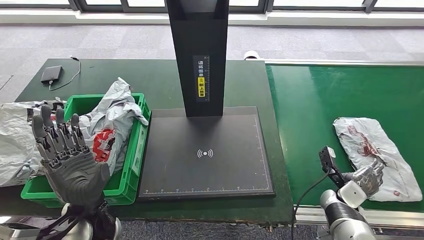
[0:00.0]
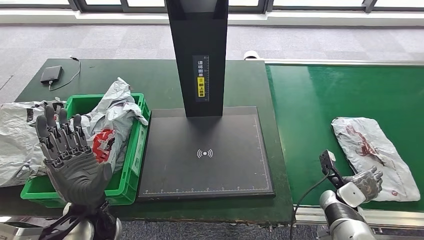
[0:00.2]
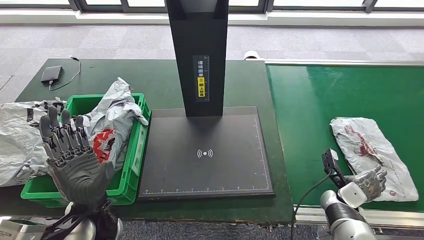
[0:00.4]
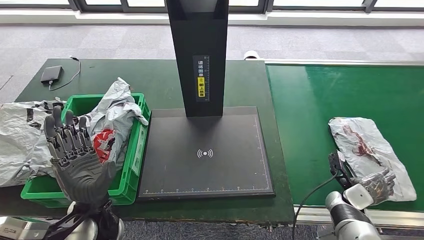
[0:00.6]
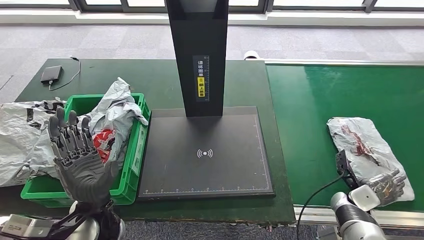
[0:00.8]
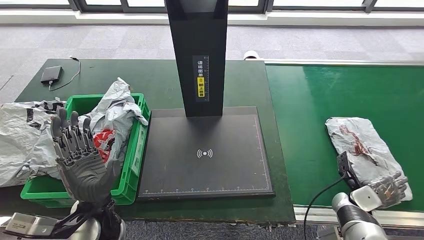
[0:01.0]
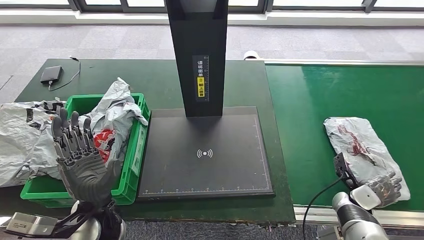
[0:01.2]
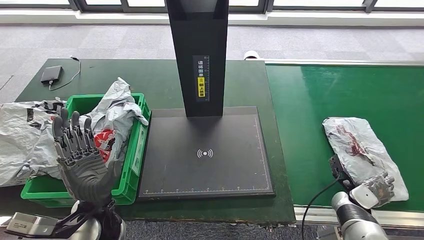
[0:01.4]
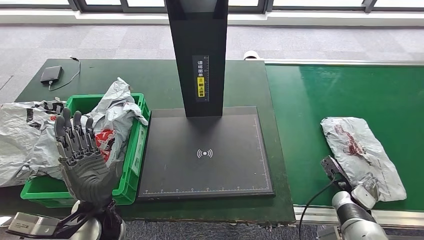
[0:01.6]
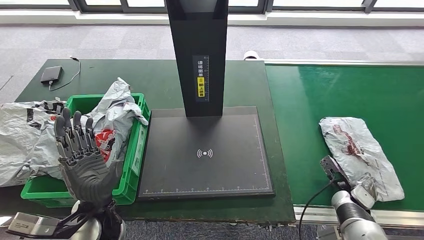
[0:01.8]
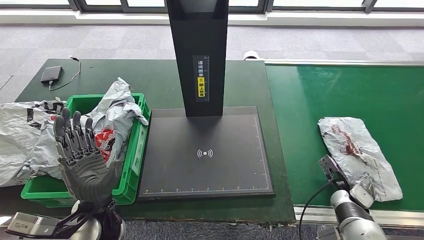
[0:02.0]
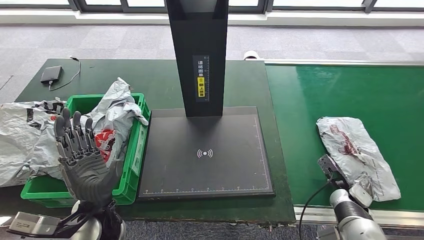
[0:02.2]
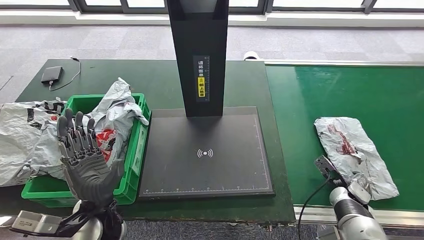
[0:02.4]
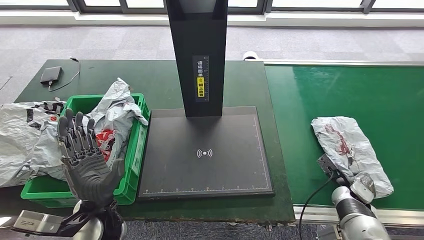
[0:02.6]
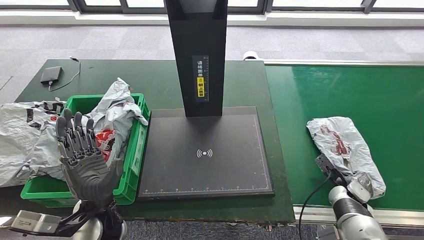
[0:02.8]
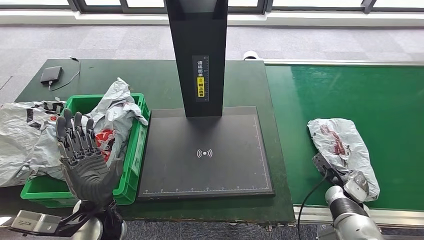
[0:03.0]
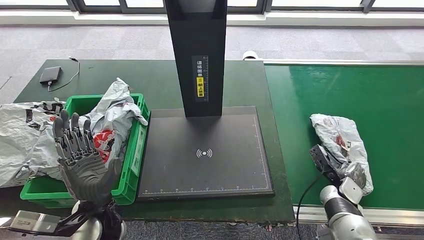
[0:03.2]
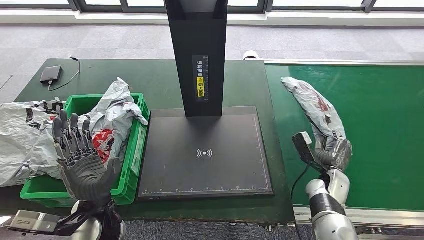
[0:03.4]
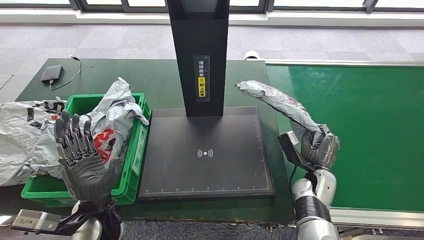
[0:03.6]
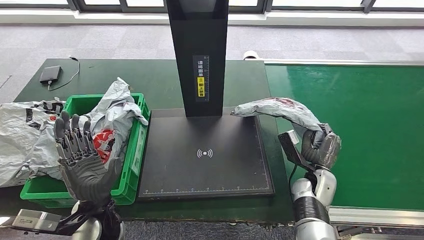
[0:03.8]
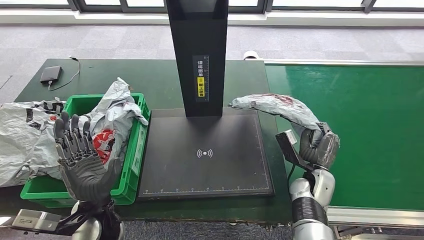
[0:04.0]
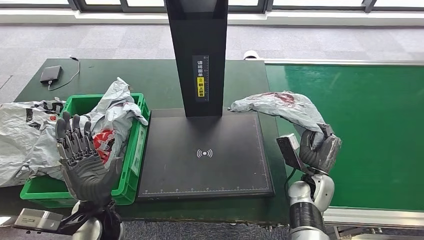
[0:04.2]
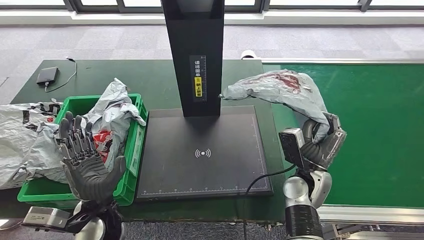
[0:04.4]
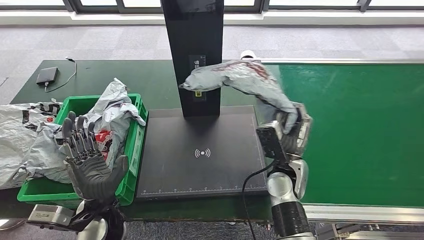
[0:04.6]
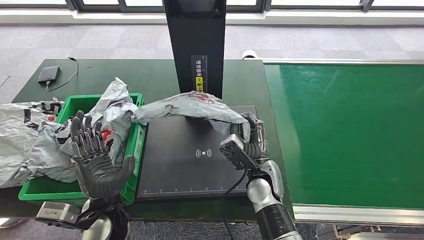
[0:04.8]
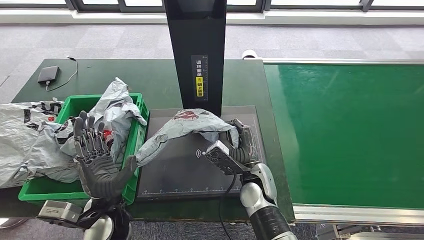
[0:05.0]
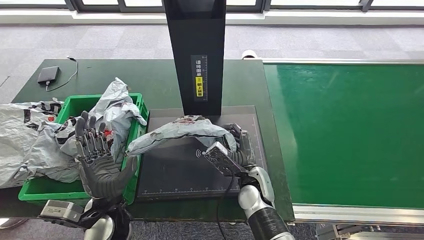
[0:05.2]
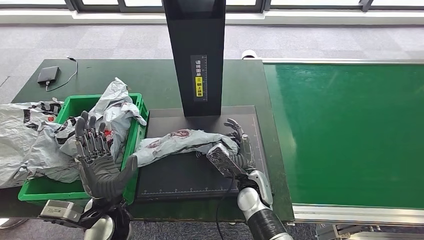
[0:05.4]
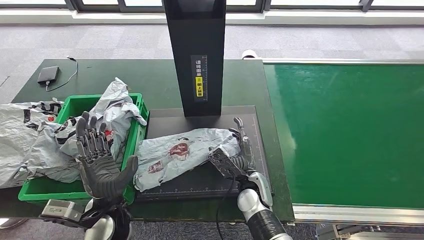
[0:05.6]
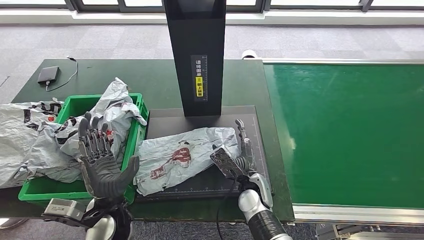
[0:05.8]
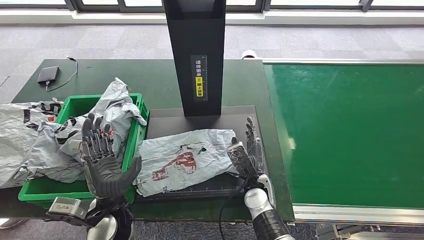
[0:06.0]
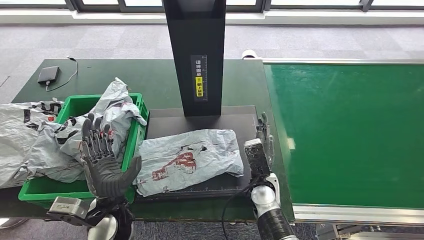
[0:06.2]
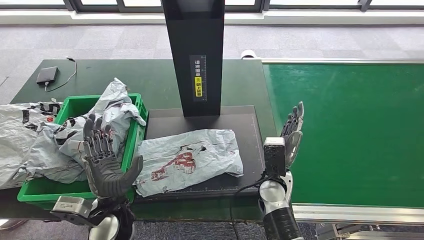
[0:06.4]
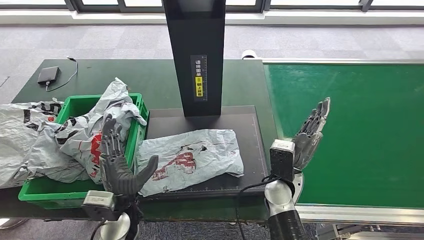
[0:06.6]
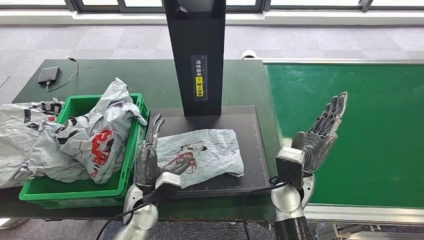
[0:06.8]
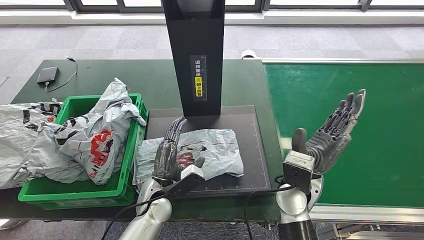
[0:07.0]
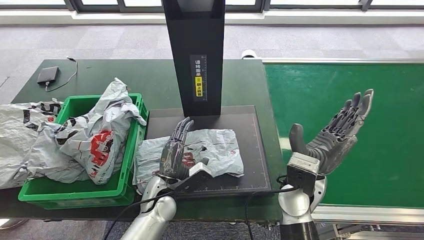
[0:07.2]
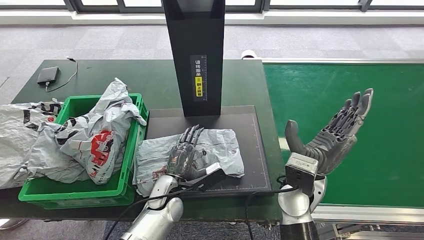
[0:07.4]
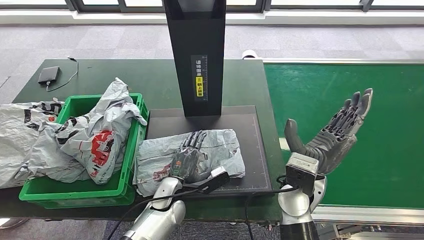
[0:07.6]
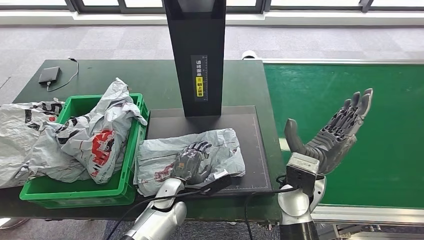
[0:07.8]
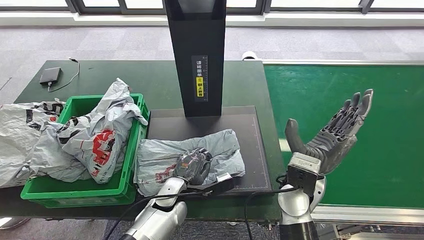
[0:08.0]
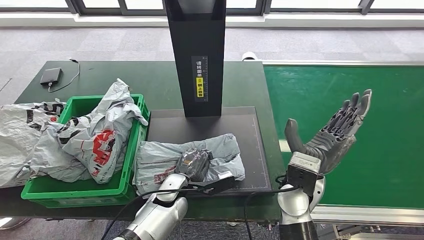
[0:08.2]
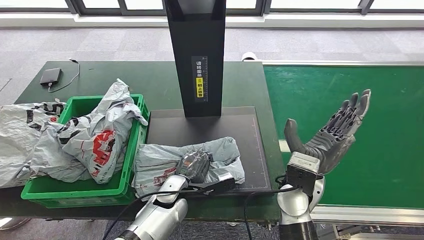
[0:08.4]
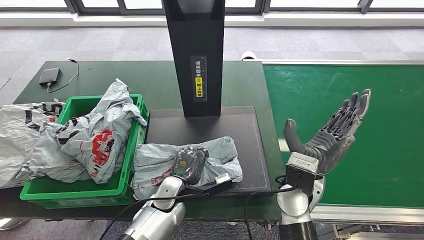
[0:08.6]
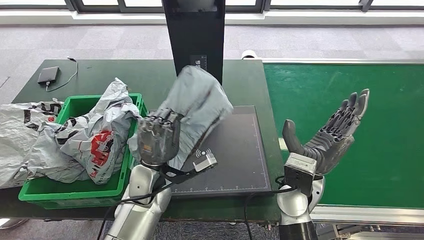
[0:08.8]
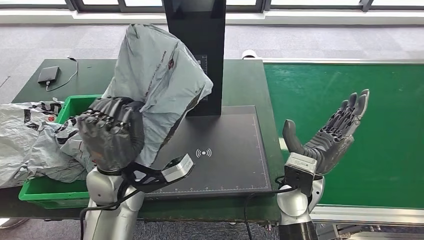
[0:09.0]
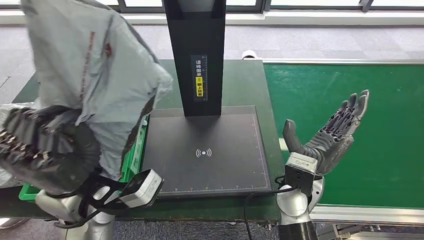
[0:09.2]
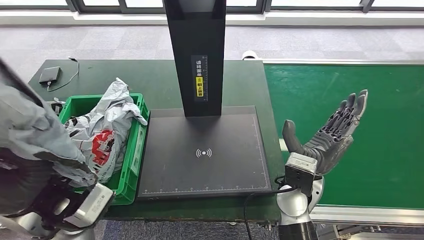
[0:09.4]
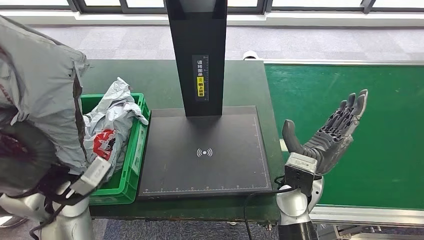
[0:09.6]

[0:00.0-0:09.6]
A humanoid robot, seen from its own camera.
Step, 0:00.0 to 0:04.0: Pick up the parcel from the conveyor belt.
Step, 0:04.2 to 0:06.0: Place the parcel onto the inbound machine.
Step, 0:06.2 to 0:09.0: Pick up the parcel from the inbound machine.
0:00.0 to 0:01.6: The hands stay close to where they were, moving slightly.
0:01.6 to 0:03.2: There are only small adjustments of the hands.

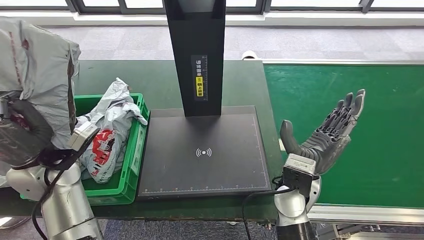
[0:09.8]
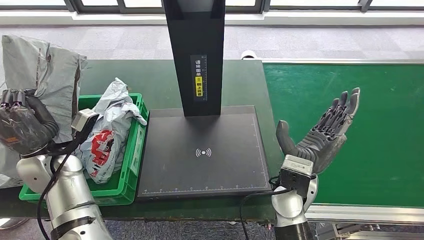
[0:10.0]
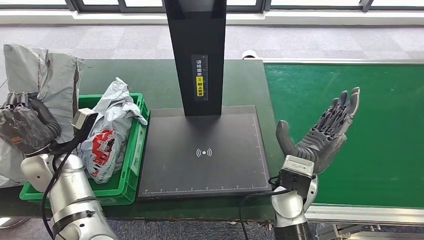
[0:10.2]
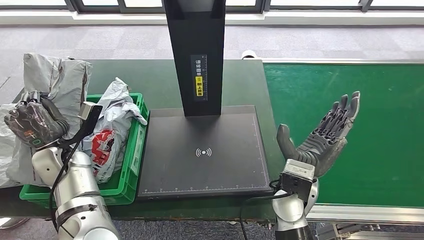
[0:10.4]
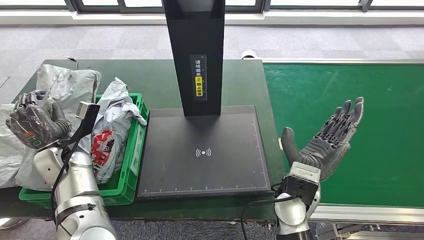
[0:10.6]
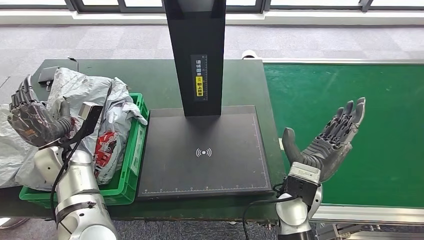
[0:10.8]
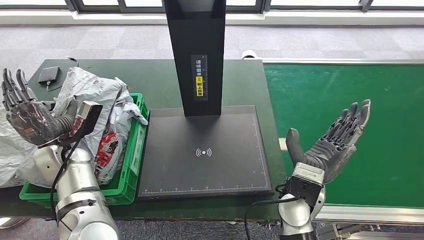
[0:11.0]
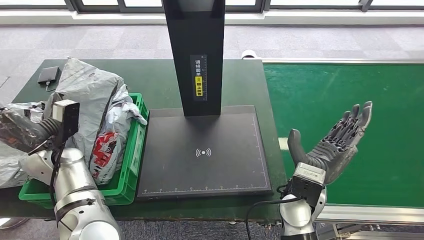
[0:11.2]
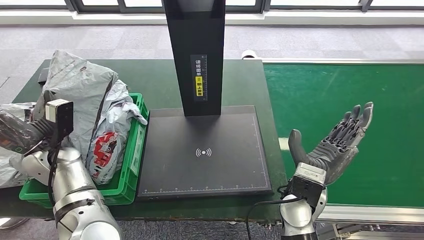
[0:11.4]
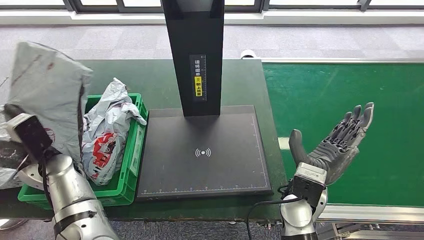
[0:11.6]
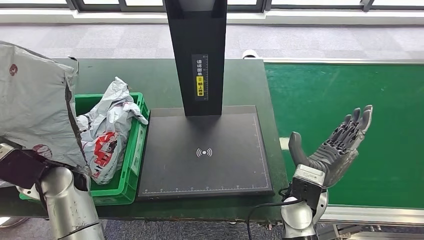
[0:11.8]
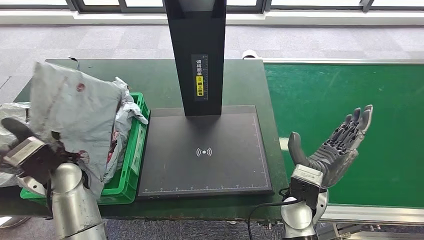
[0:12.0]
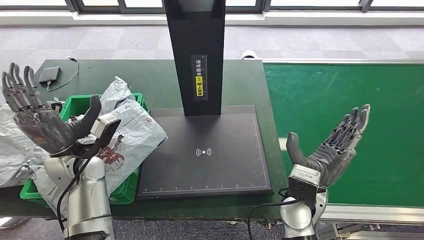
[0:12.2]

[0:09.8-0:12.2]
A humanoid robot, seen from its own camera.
Step, 0:09.8 to 0:12.2: Place the parcel into the delivery box.
0:11.0 to 0:12.2: The left hand shifts about 5 cm to the right.
